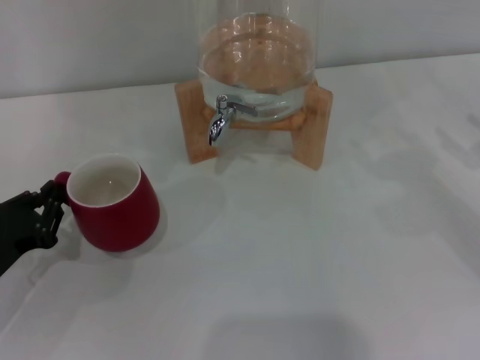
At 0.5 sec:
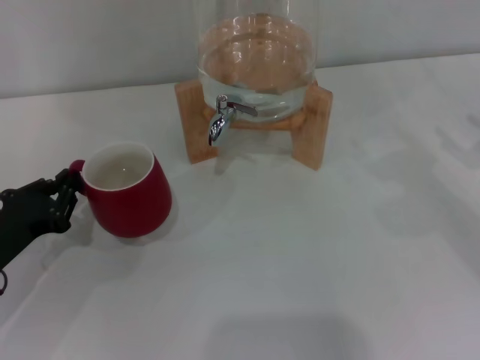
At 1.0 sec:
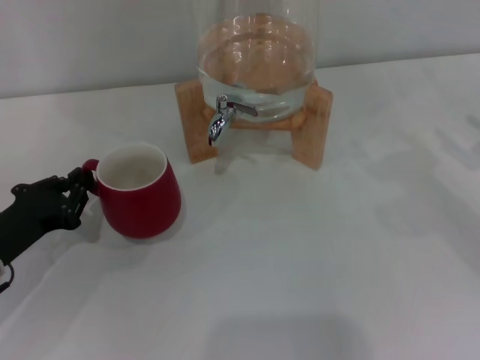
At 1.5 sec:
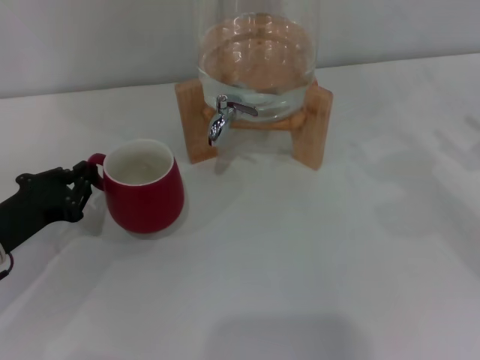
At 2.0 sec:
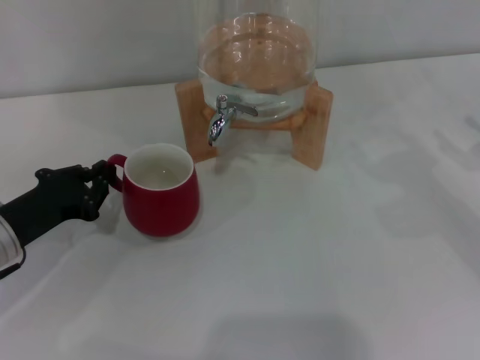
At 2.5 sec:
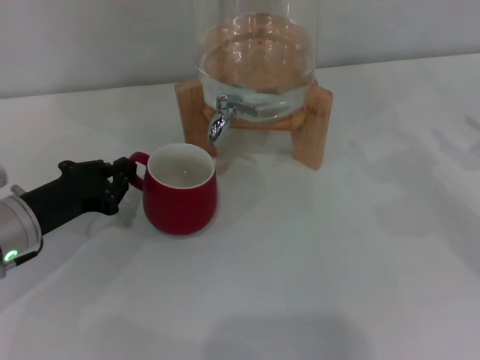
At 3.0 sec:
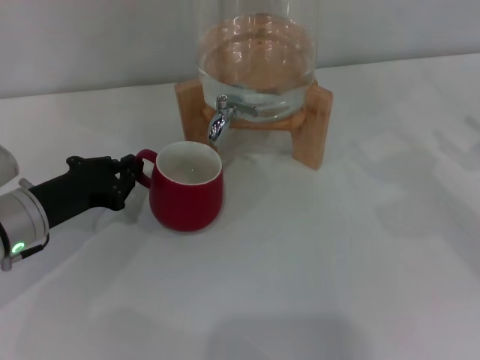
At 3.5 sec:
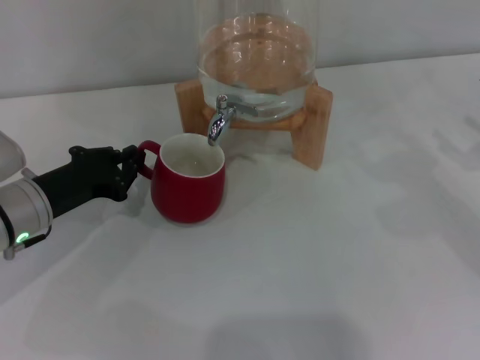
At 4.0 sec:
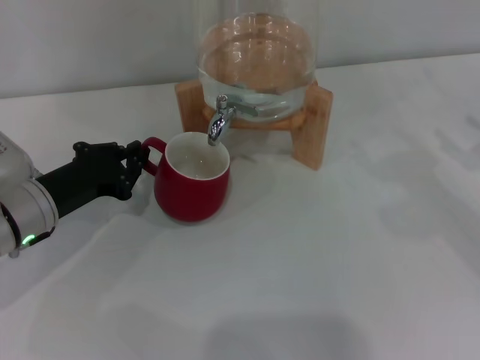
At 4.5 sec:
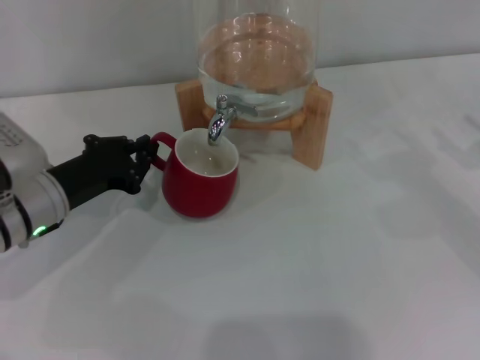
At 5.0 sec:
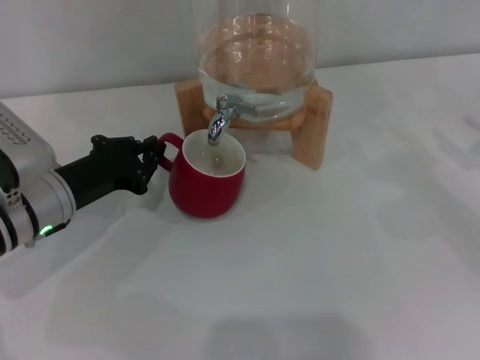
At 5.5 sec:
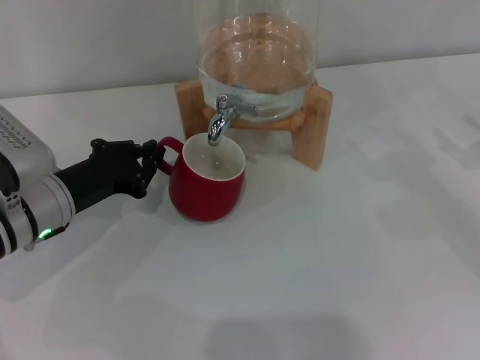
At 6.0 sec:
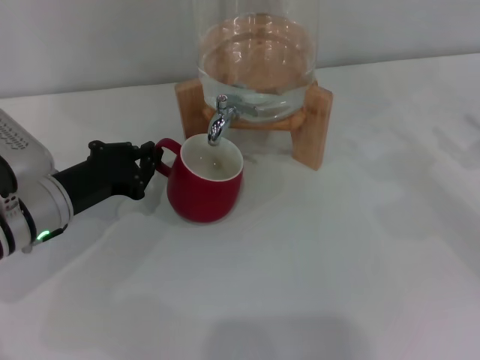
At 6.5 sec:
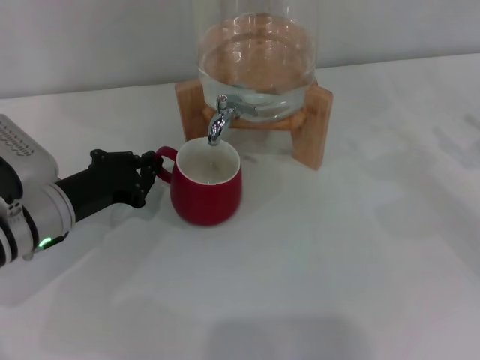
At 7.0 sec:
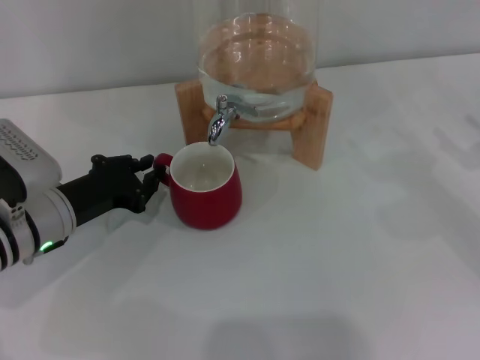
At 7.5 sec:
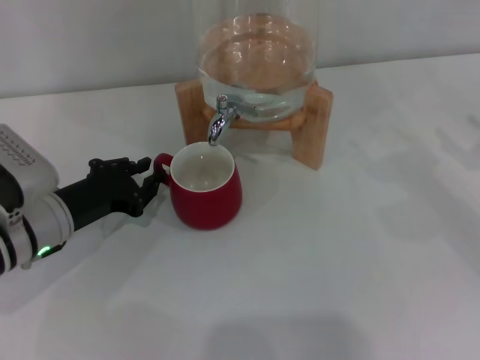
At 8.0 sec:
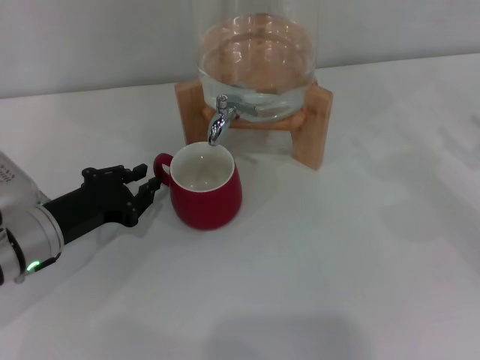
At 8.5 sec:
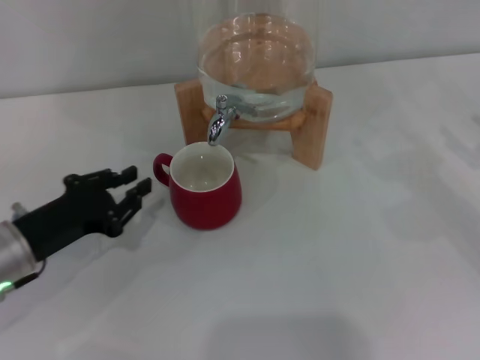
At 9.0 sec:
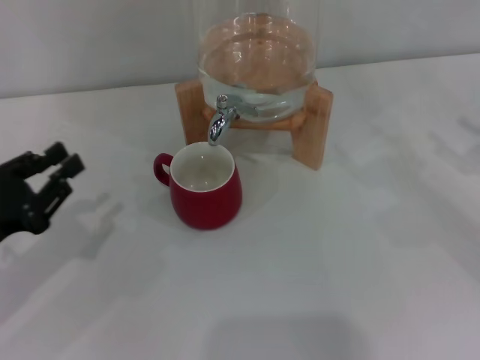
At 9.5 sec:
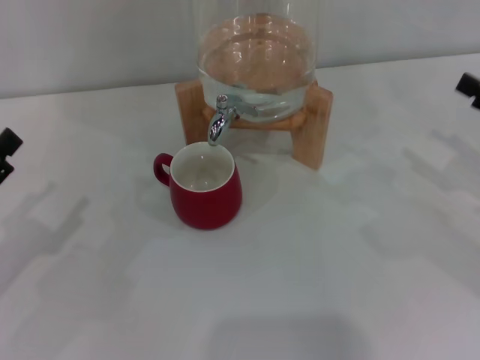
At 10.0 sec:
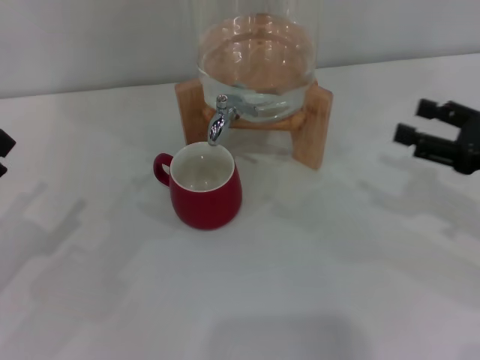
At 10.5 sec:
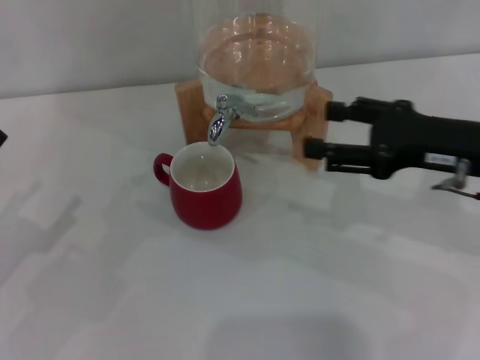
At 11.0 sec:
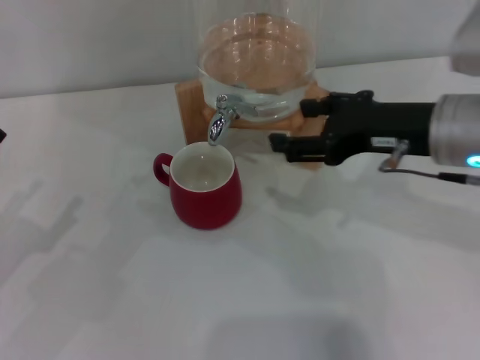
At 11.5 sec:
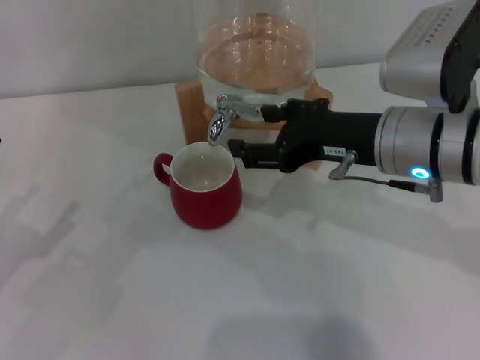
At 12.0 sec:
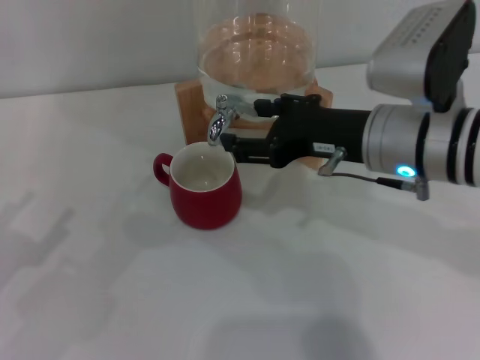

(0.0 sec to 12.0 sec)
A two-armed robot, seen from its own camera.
Task of the whole recording: the left gripper pick up the red cup and place it horizontally under the faucet, the right gripper turn on the faucet to fill the cup, and then turn off the faucet.
Step, 0.0 sec - 7.5 sec: Move the cup beneath the water dispenser nozzle with the left gripper.
0.0 sec - 2.0 sec: The left gripper travels forward by some 5 cm.
2.0 sec - 4.0 sec: There are only small adjustments of the grippers.
4.0 sec - 8.0 sec: There are only small adjustments of the grippers.
8.0 sec - 10.0 sec: The left gripper is displaced to the left and backward by roughly 15 cm, and opens its fingers. The right gripper travels to the left by approximately 5 cm.
10.0 sec - 12.0 sec: The right gripper is displaced to the left by some 20 cm.

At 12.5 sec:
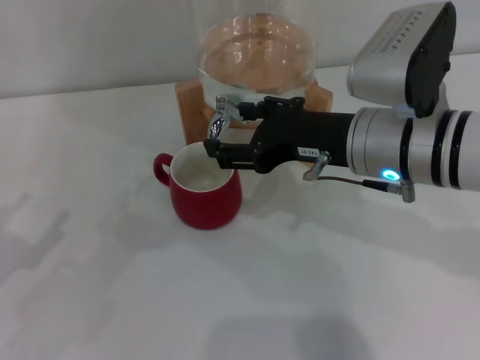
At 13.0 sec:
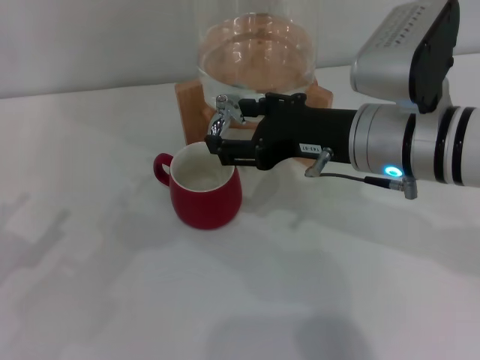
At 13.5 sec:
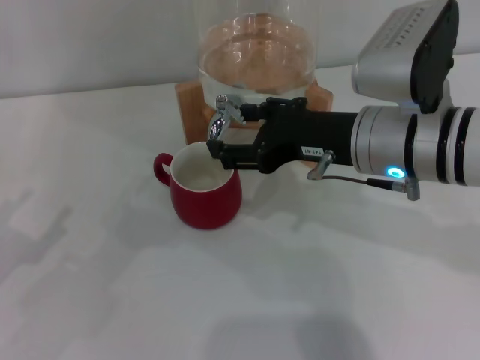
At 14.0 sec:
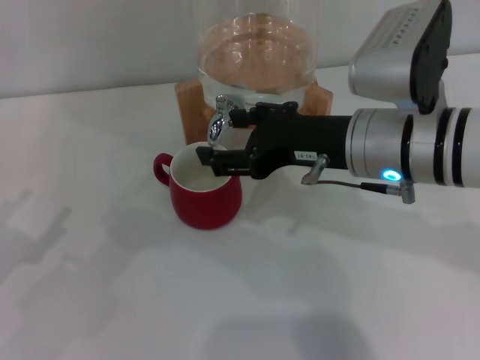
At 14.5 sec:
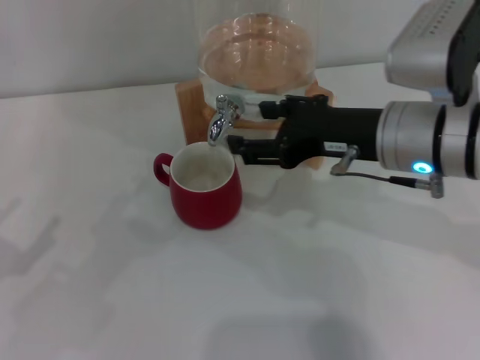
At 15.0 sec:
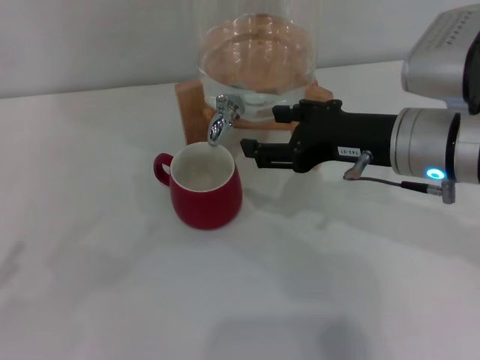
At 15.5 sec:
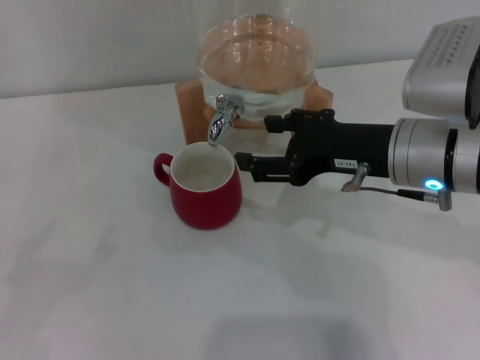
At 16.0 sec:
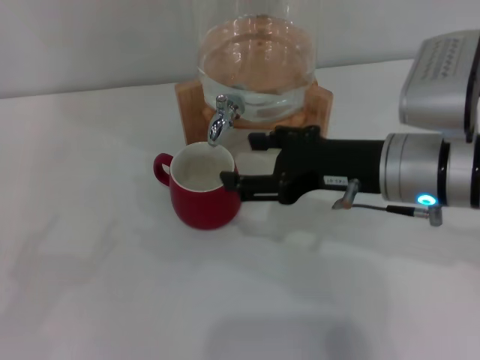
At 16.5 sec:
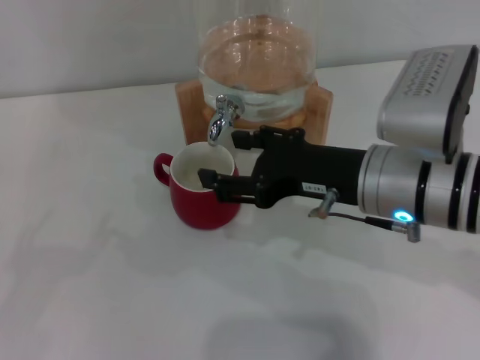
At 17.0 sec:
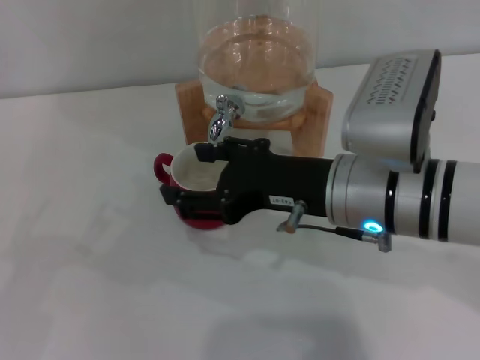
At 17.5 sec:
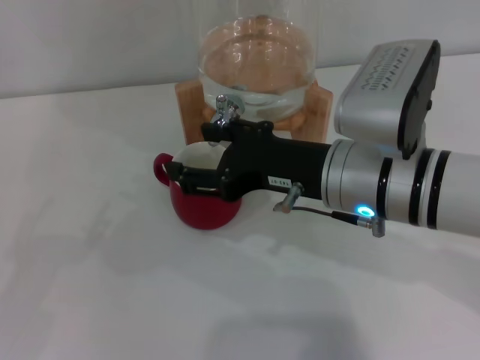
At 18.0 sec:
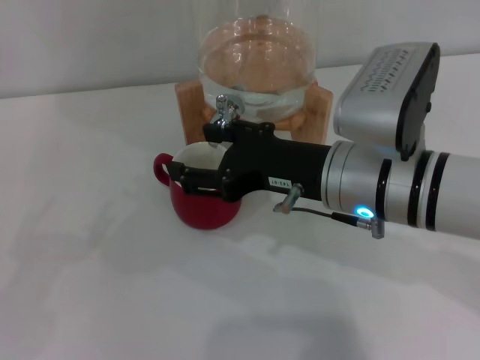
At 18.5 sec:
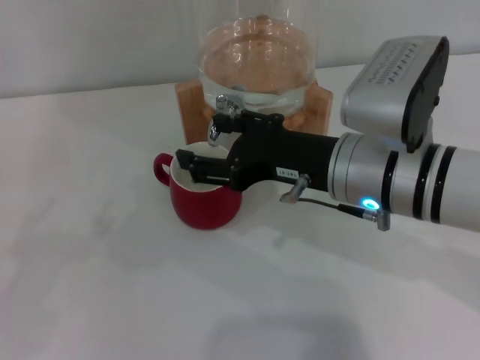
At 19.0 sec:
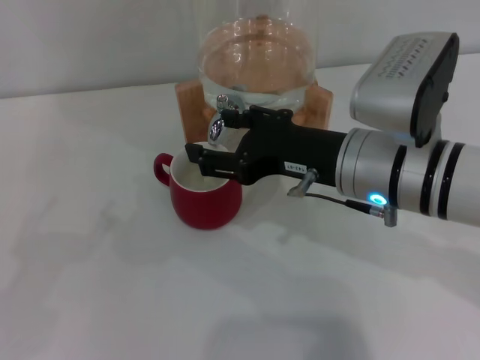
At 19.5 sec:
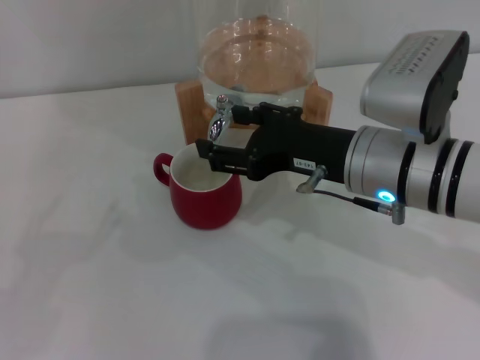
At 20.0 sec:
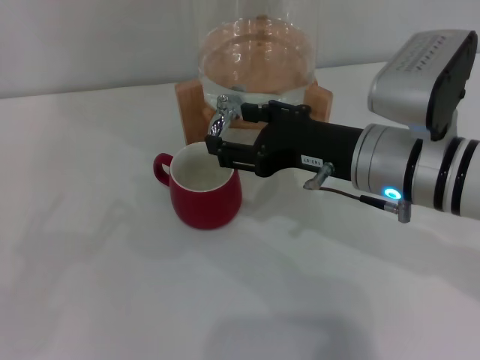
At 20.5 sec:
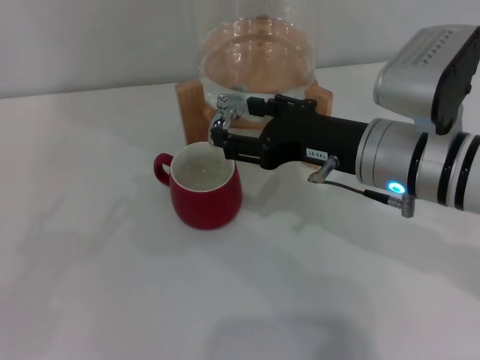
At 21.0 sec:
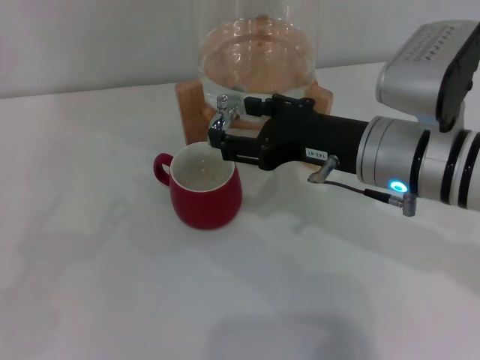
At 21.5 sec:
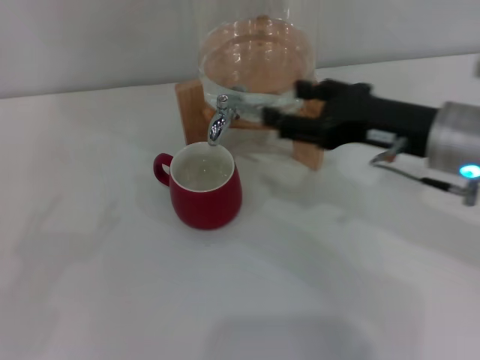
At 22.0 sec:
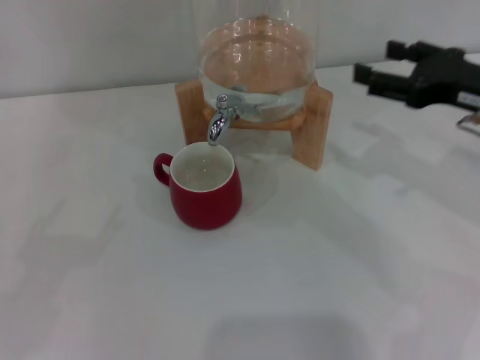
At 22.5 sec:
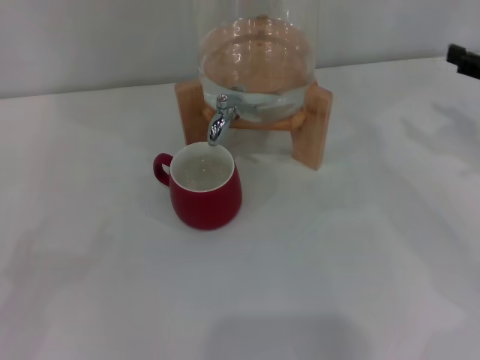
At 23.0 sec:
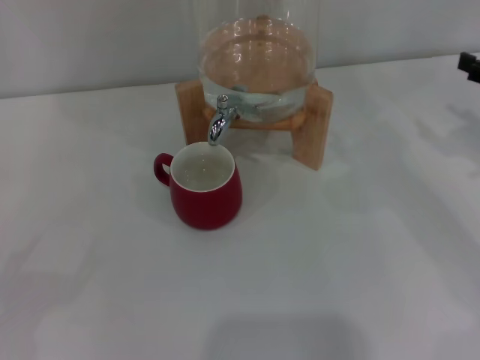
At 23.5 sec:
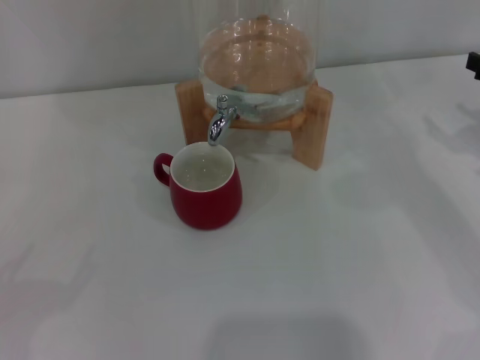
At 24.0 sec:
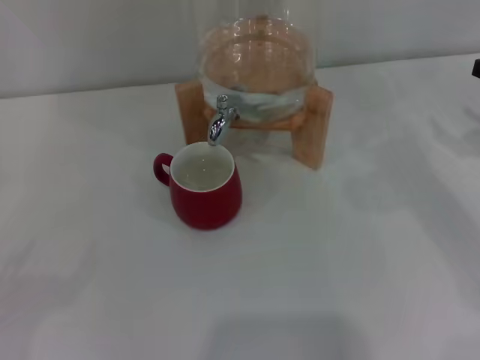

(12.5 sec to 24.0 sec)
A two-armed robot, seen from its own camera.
Task of the whole recording: the left gripper pick up the red cup and place it horizontally under the faucet, the right gripper turn on the faucet to fill the cup, and then turn off the faucet.
Step, 14.5 sec - 21.0 sec: Close the dispenser valve with the right gripper.
12.5 sec - 14.5 sec: There are only small adjustments of the grippers.
14.5 sec - 16.5 sec: The left gripper is displaced to the left by approximately 5 cm.
16.5 sec - 20.0 sec: The grippers make only small movements.
20.0 sec - 22.0 sec: The right gripper moves to the right, roughly 15 cm.
22.0 sec - 24.0 sec: The right gripper is displaced to the right by about 10 cm.
